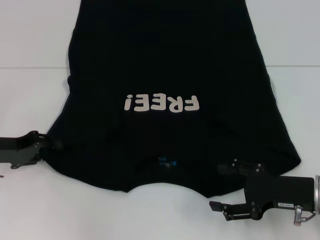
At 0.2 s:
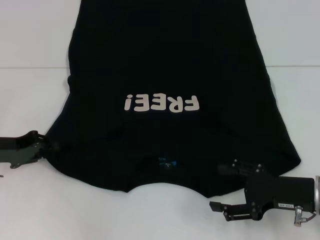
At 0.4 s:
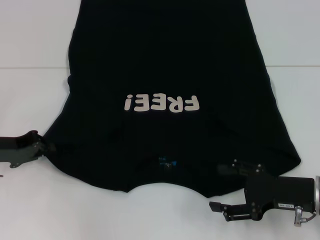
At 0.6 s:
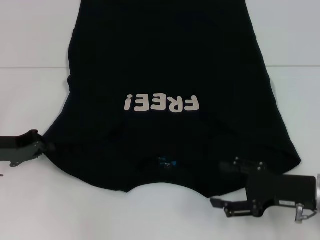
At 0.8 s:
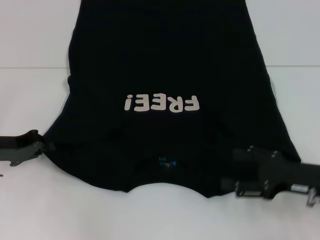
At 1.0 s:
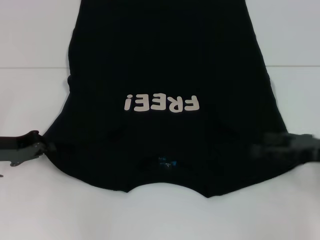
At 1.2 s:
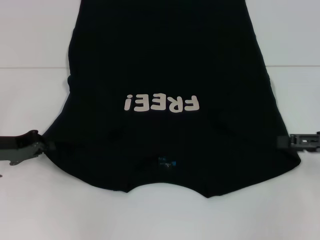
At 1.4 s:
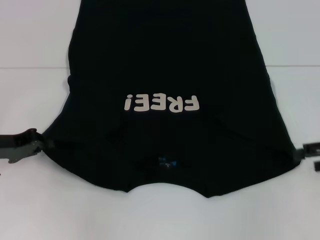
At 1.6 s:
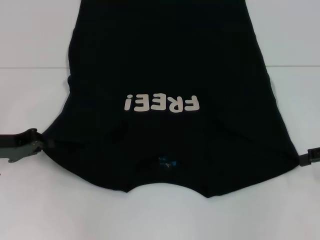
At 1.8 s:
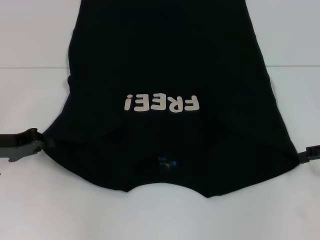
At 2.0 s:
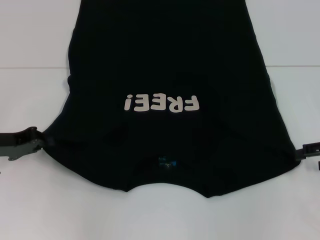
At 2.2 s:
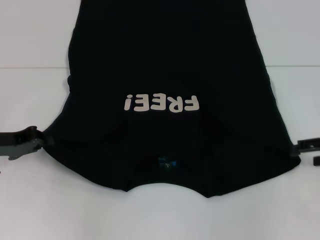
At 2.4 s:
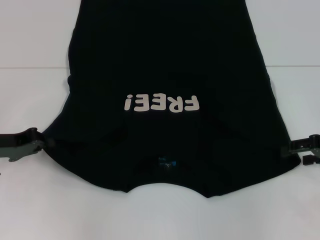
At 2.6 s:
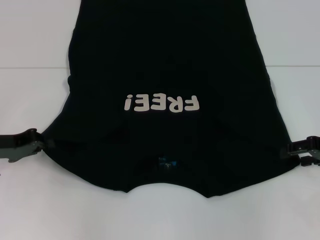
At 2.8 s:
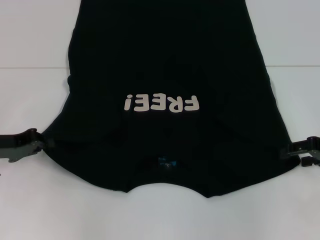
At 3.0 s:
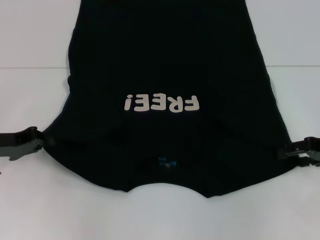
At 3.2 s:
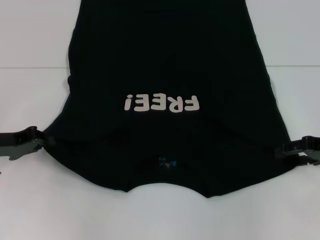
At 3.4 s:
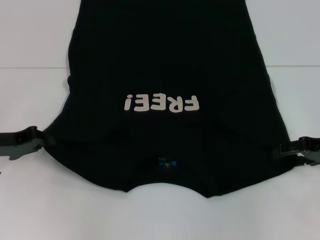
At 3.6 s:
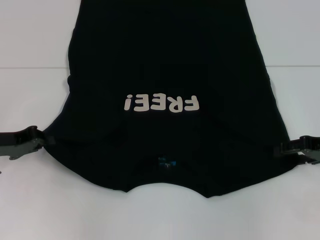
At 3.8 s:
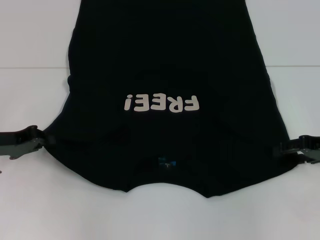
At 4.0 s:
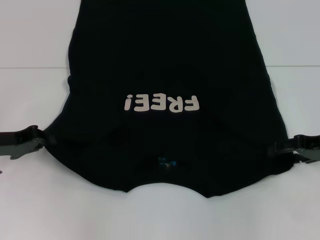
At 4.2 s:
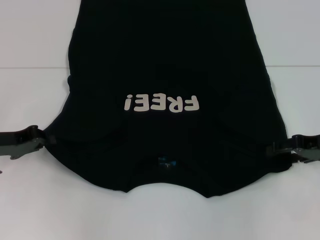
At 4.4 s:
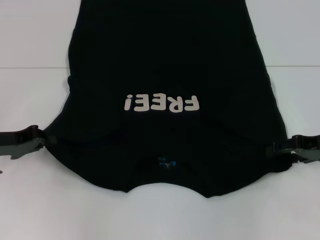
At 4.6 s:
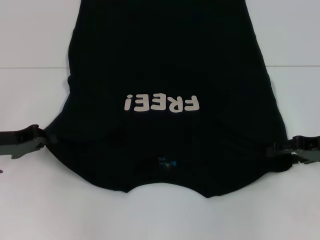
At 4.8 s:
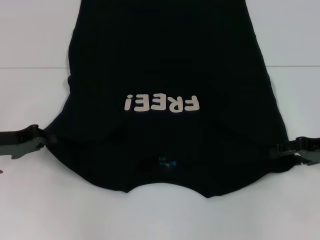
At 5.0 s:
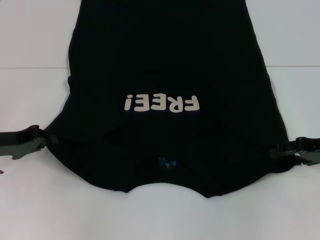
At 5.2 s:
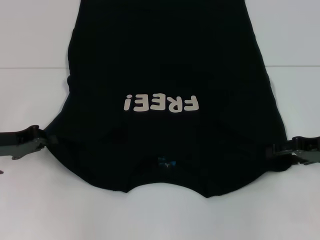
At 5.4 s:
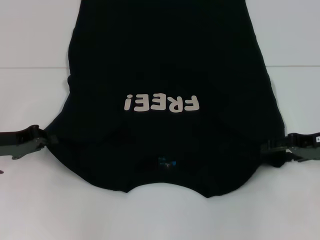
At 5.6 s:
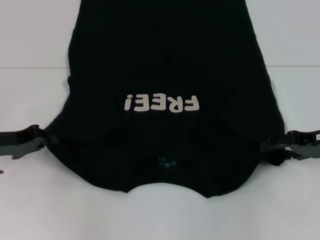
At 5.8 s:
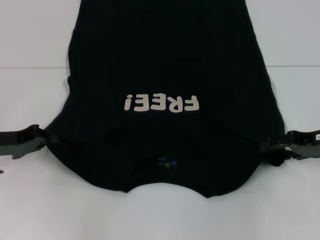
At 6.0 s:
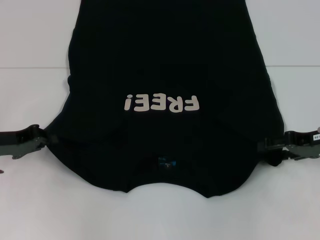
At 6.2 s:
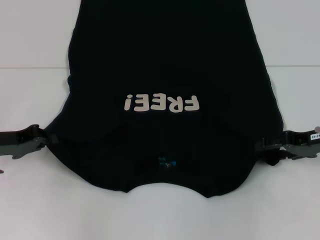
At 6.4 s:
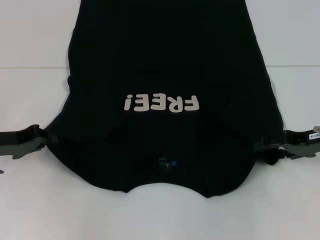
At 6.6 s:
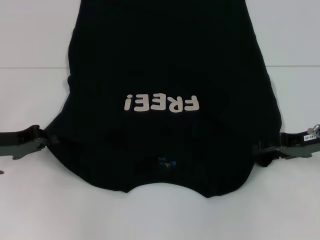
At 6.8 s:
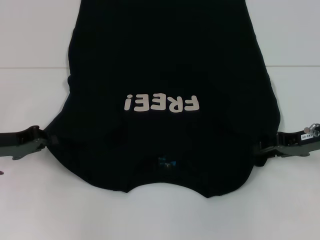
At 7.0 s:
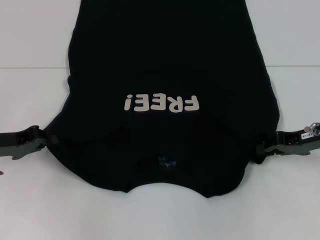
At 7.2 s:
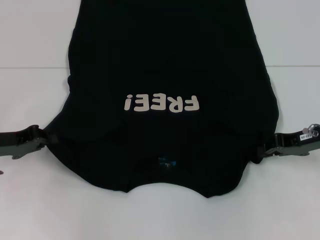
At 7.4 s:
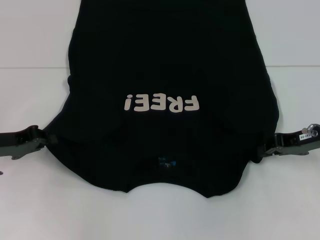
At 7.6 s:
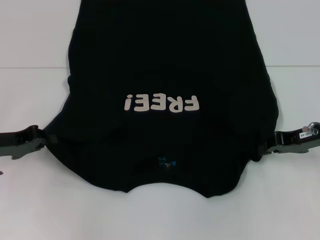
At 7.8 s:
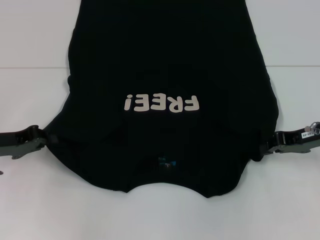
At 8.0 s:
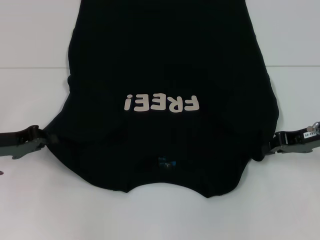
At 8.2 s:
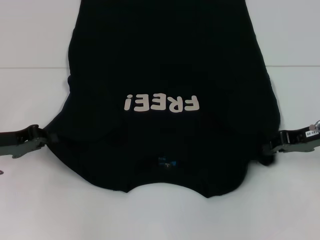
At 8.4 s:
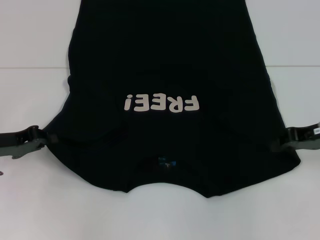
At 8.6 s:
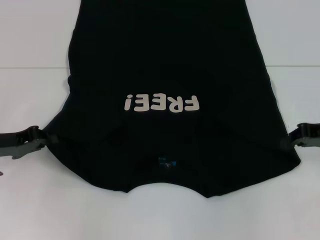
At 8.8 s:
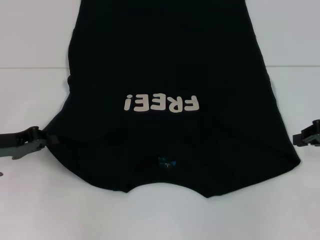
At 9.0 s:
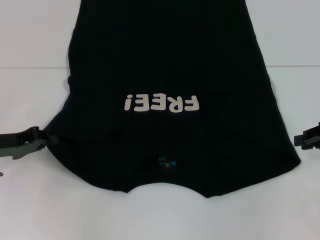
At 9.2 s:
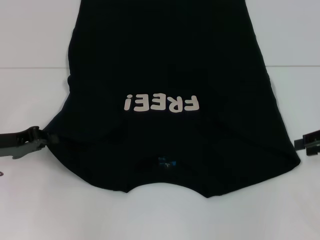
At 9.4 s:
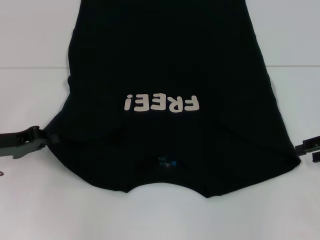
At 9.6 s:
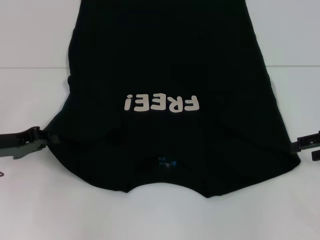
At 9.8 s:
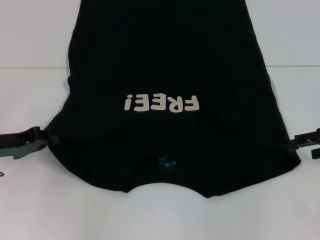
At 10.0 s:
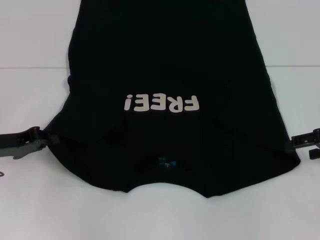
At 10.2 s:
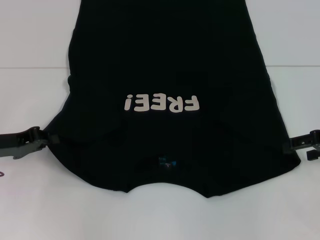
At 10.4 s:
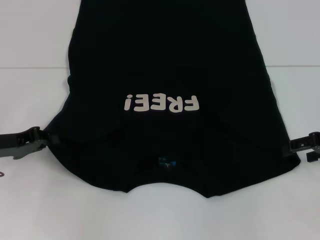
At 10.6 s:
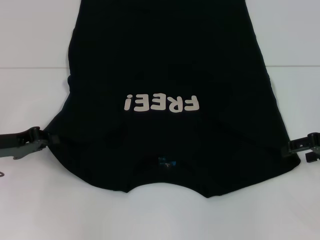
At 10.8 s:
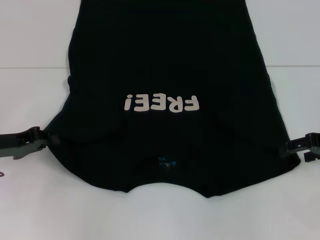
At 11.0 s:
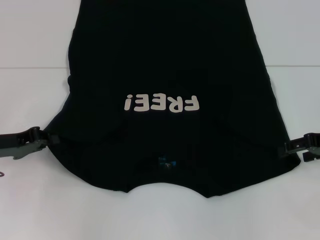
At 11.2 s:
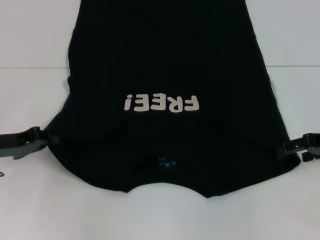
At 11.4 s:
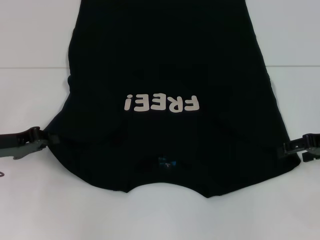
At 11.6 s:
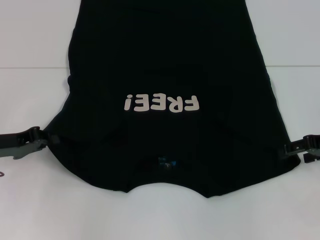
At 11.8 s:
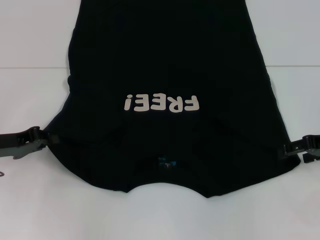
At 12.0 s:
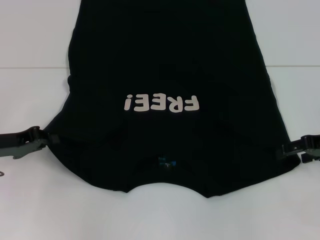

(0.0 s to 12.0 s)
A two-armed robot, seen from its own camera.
0.0 s - 1.6 s: The right gripper travels to the right, upward and forward by approximately 15 cm. The left gripper closes.
1.6 s - 3.0 s: The right gripper shifts by about 5 cm.
3.0 s - 4.4 s: The grippers make only small movements.
4.4 s - 6.0 s: The two grippers keep their place.
6.0 s - 7.6 s: The right gripper closes.
7.6 s - 9.0 s: The right gripper moves to the right, some 5 cm.
9.0 s - 10.4 s: The right gripper opens.
10.4 s - 12.0 s: Both grippers stay put.

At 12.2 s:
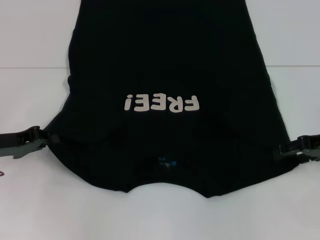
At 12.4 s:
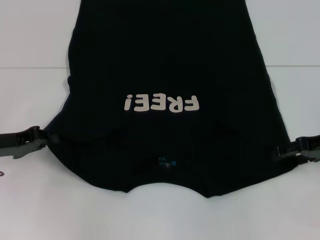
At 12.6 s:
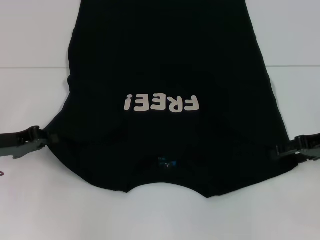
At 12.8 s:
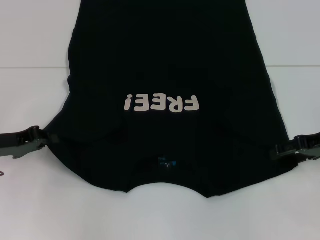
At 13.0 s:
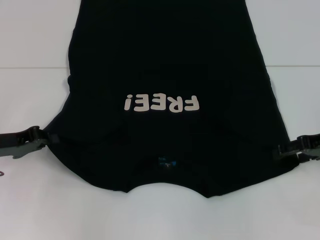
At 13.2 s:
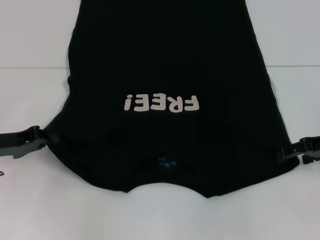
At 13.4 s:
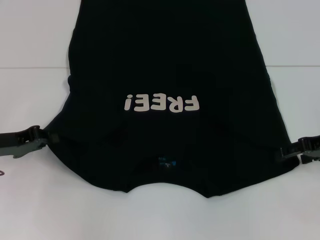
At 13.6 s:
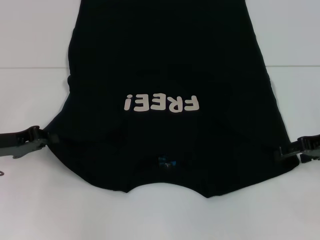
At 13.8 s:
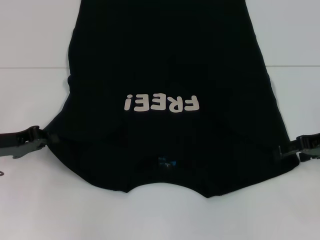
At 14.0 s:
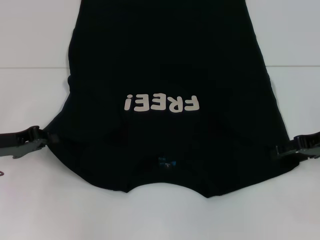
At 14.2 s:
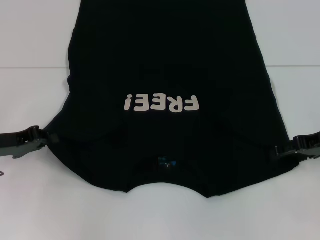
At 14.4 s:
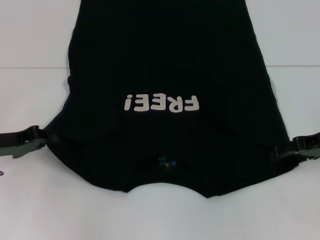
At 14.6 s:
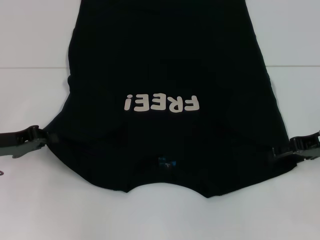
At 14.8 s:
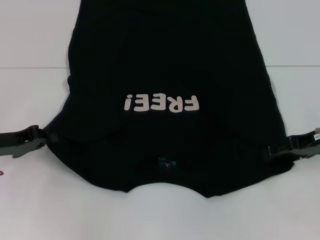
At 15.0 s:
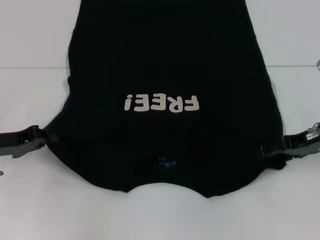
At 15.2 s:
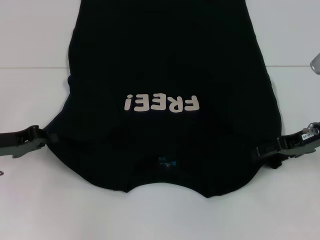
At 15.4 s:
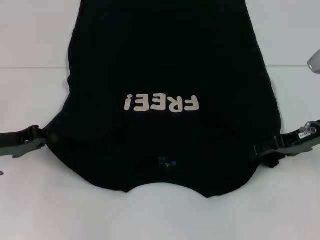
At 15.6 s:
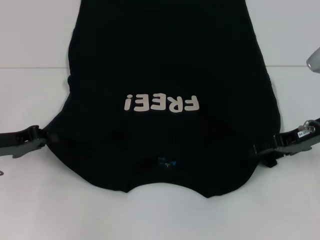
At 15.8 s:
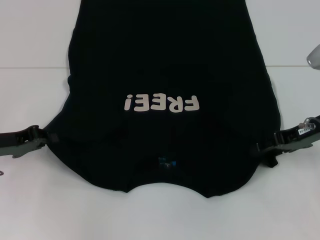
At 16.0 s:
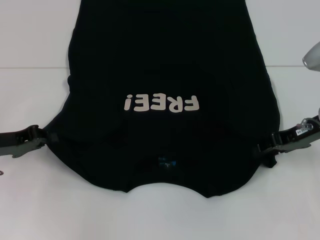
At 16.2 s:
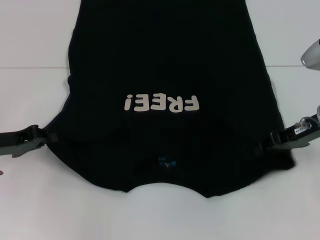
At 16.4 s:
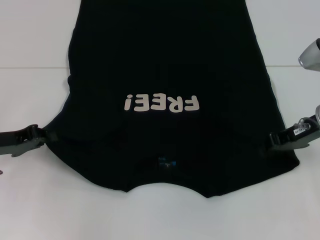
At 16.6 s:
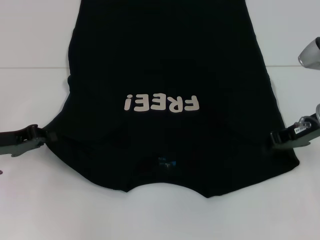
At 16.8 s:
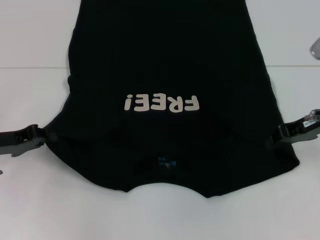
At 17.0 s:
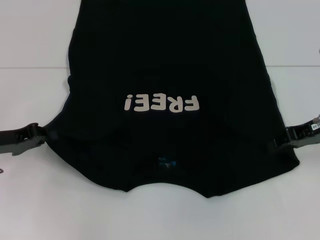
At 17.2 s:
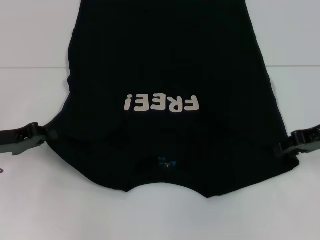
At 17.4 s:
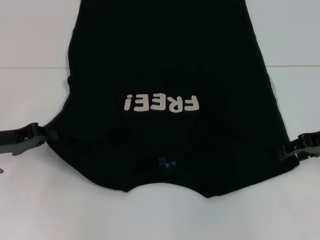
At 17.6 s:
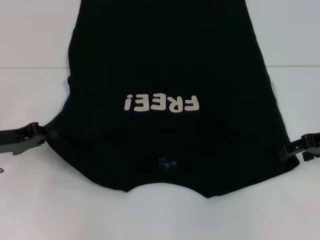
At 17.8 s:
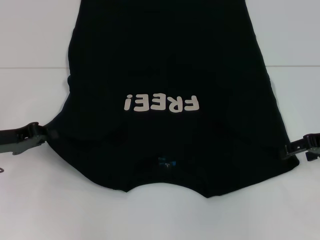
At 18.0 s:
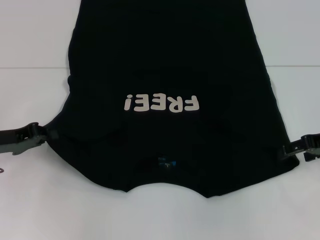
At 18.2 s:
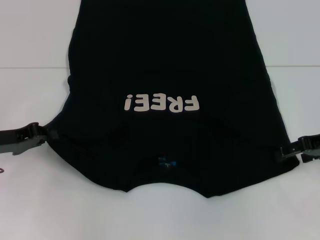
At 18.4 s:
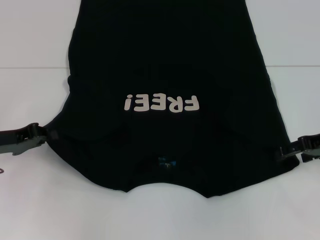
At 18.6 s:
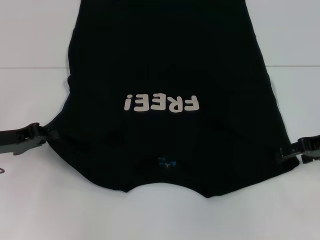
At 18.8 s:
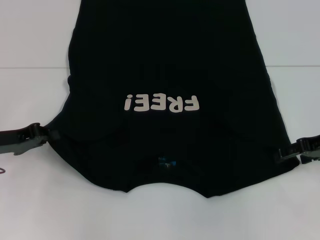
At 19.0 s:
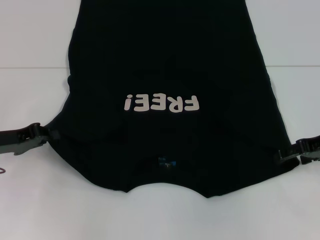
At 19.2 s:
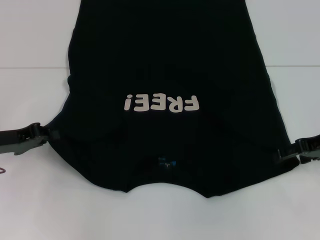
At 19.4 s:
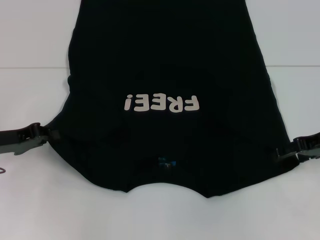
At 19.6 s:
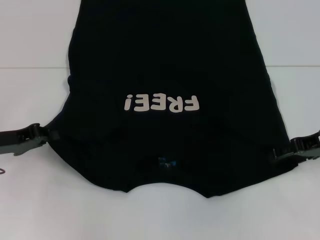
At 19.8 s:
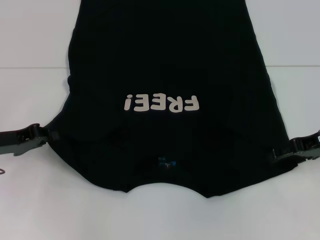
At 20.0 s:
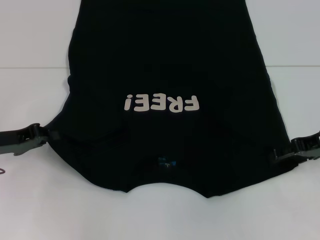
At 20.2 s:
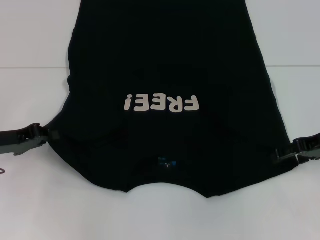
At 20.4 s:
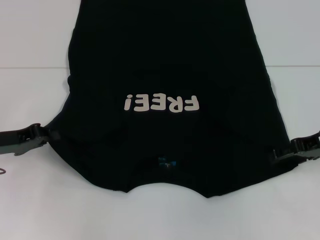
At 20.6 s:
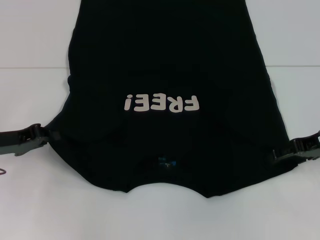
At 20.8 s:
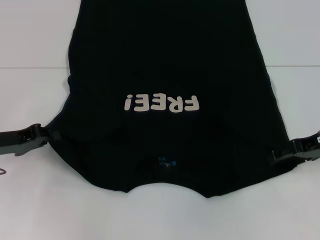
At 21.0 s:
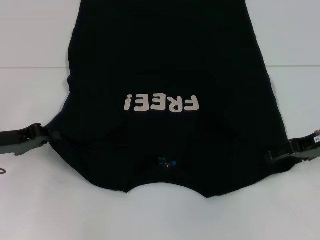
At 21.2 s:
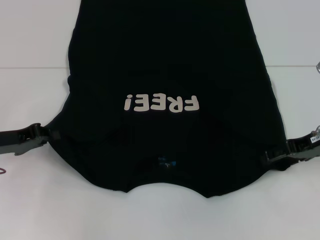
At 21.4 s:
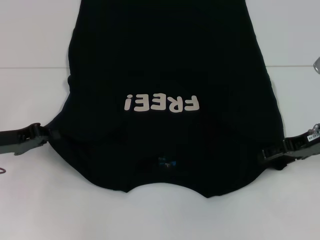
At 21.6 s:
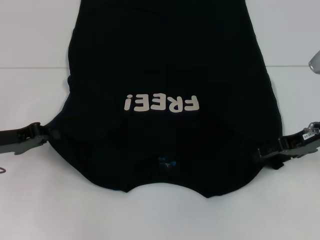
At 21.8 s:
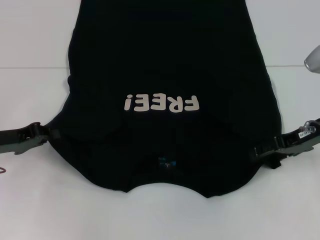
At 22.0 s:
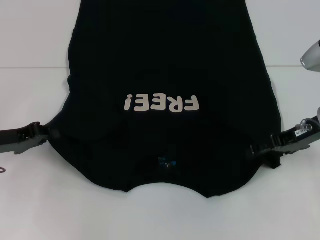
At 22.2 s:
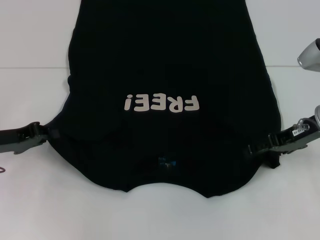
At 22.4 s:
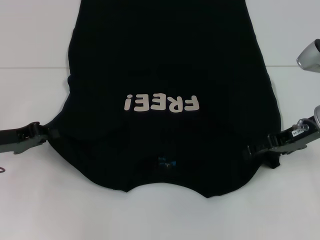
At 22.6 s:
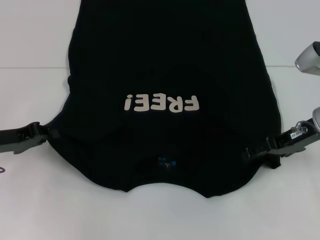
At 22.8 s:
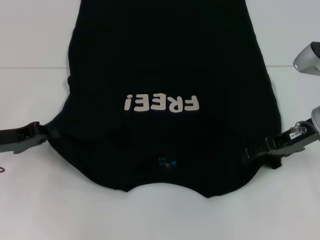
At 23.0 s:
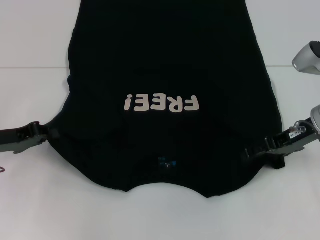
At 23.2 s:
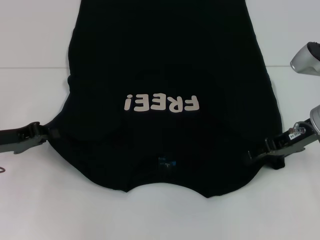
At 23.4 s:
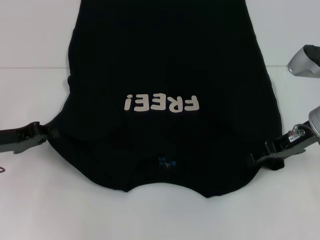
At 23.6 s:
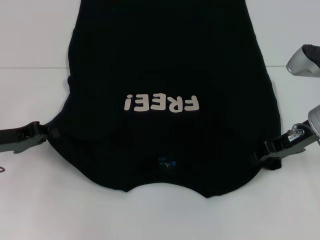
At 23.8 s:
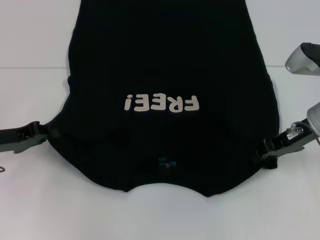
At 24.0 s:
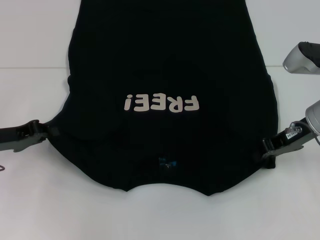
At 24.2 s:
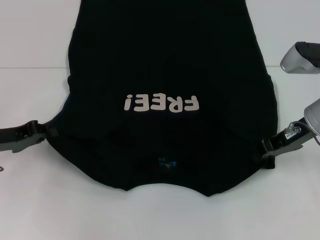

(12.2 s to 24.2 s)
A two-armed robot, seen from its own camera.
12.2 s - 13.8 s: Both grippers stay about where they are.
13.8 s - 15.2 s: The grippers make only small movements.
15.2 s - 16.6 s: The right gripper closes up.
16.6 s - 18.2 s: The right gripper shifts about 5 cm to the right, and opens its fingers.
18.2 s - 19.8 s: Both grippers stay about where they are.
19.8 s - 21.2 s: Both grippers stay put.
21.2 s - 22.6 s: The grippers make only small movements.
22.6 s - 24.2 s: The right gripper closes.
